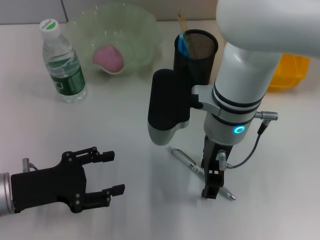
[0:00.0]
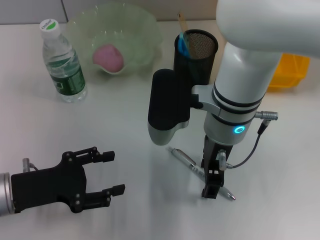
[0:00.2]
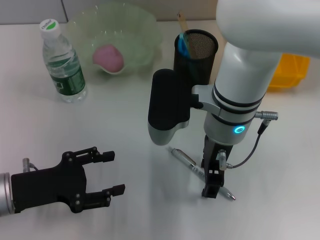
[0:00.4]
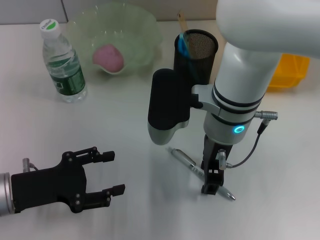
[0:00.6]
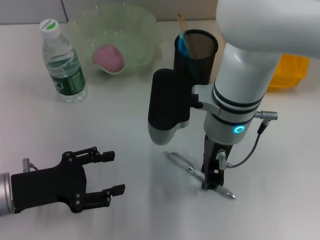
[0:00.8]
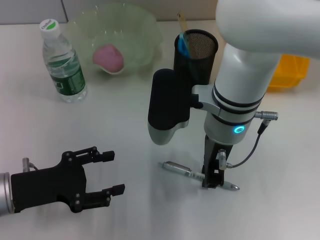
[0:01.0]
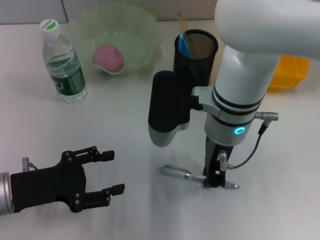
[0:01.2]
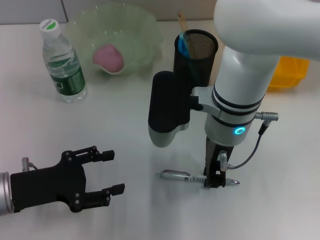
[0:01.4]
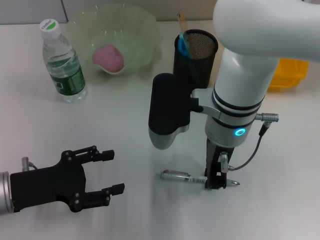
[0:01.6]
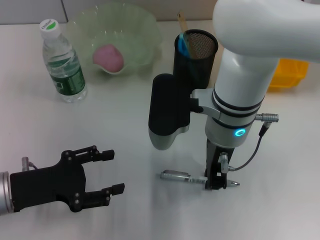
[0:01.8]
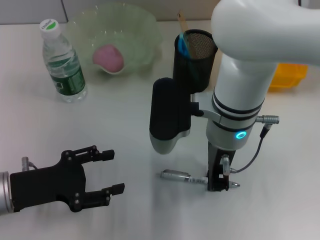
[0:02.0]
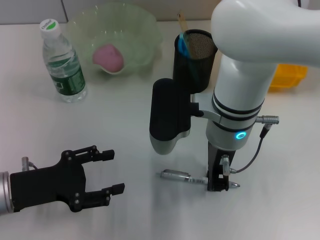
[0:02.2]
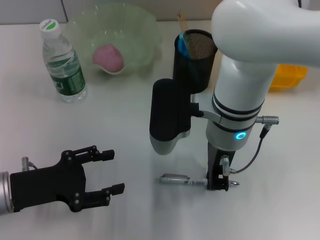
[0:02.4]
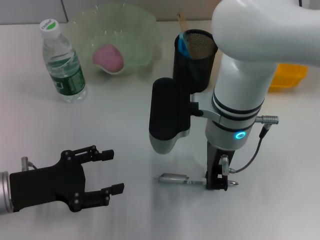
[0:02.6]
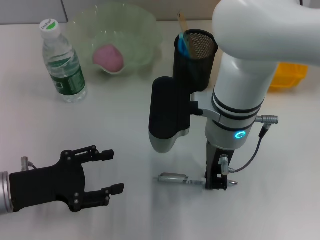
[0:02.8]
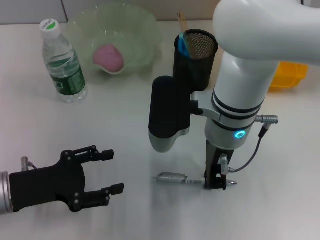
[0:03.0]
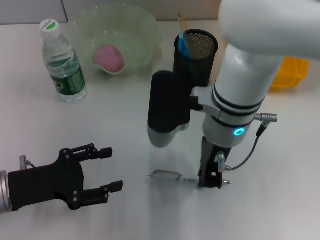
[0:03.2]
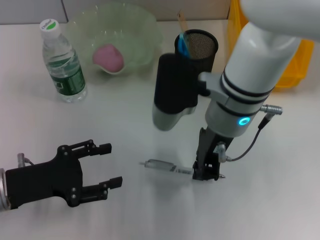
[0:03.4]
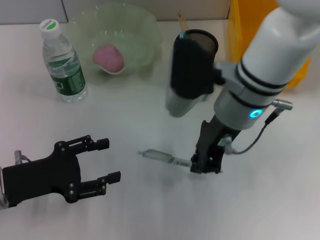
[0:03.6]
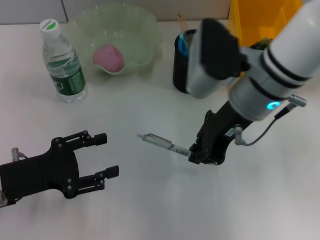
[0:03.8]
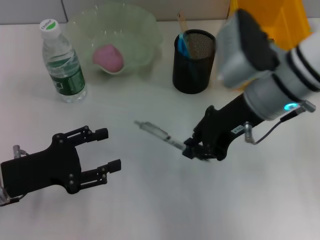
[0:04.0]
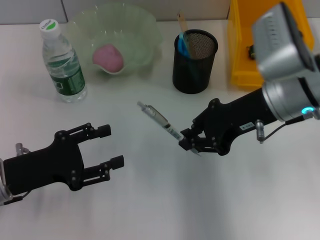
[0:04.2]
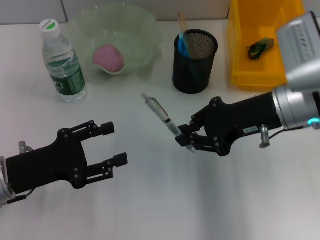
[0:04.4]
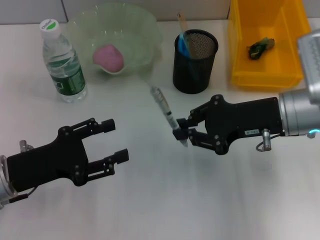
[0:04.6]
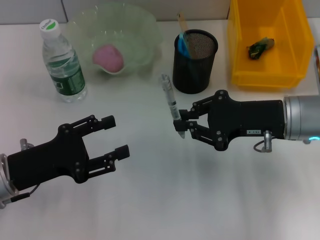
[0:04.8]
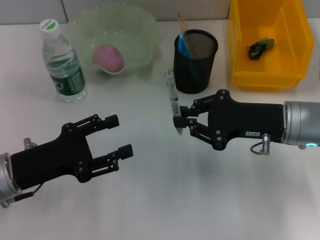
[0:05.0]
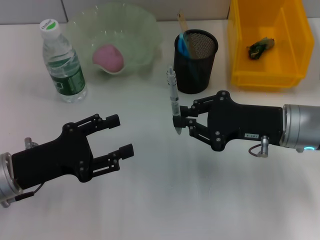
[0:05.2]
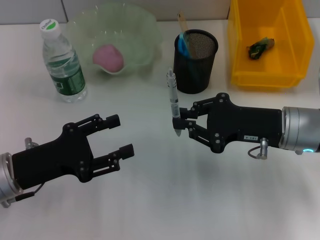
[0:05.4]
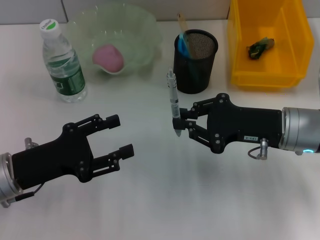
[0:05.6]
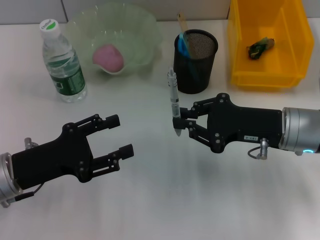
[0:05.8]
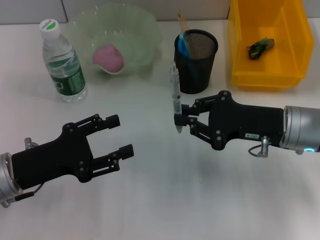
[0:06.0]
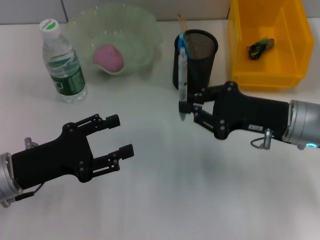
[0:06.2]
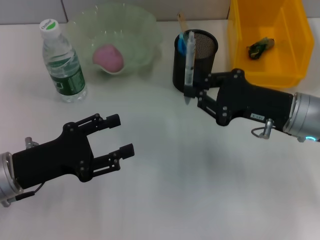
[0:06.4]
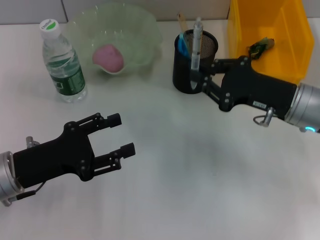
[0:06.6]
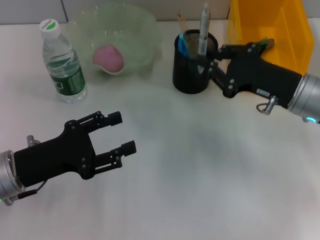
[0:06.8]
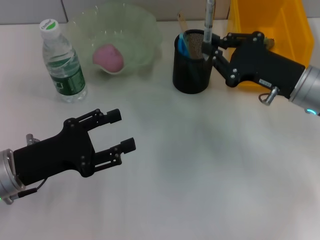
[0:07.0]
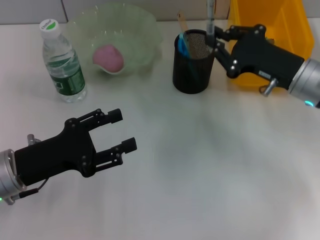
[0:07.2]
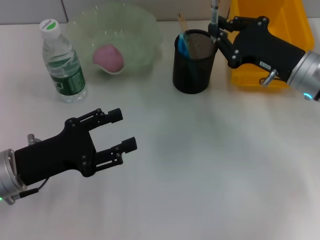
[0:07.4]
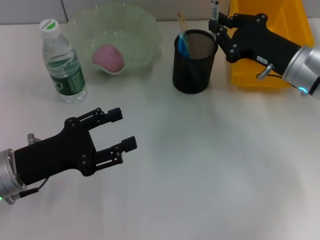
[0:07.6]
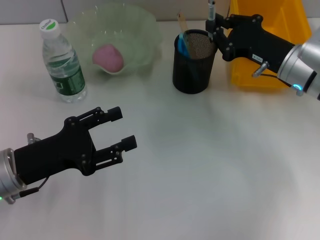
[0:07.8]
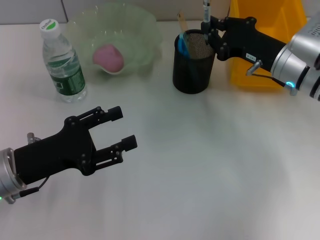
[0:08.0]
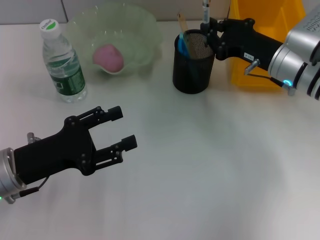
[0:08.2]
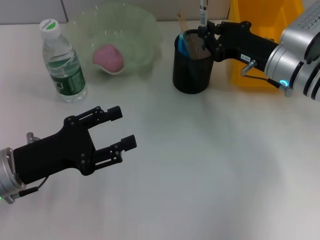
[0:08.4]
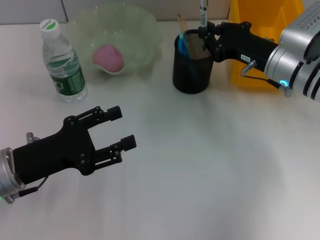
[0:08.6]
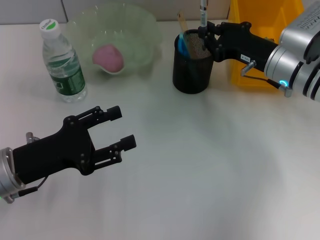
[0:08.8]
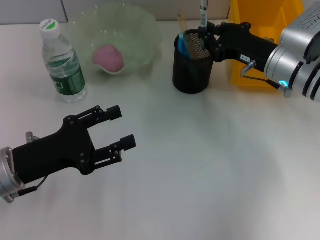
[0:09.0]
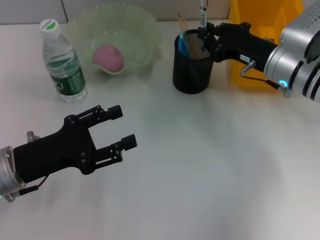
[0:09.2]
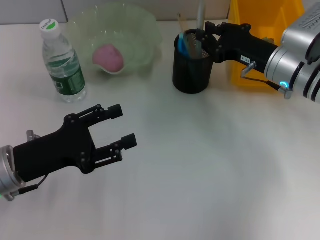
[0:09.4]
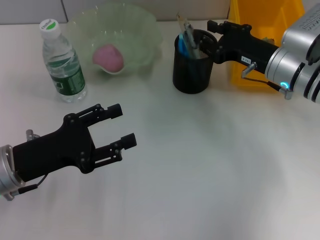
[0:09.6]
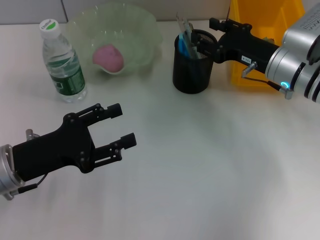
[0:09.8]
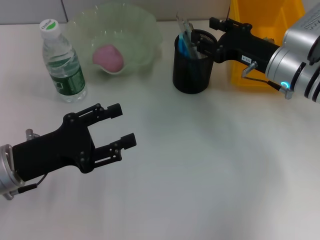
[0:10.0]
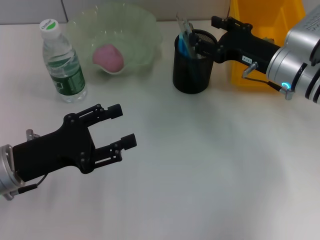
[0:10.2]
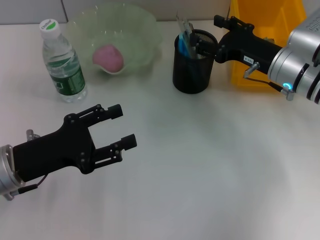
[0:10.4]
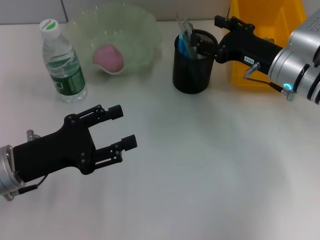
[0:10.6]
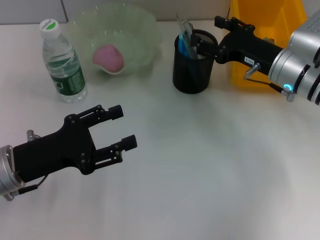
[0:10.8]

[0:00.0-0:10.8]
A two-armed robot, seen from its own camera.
Step, 0:00.0 to 0:02.6: Grab the gray spring-action pen with the right hand.
Step, 0:03.0 to 0:09.6: Place the gray spring-action pen into the pen holder with the right hand.
0:00.0 to 0:01.6: The right gripper closes.
0:01.6 to 0:03.0: The two grippers keep their place.
0:03.0 to 0:04.6: The right gripper goes approximately 15 cm to the right.
0:06.2 to 0:07.8: The right gripper travels forward by roughly 5 cm.
0:07.8 to 0:09.2: There are only small adjustments of the grippers.
0:09.2 to 0:10.8: The right gripper opens.

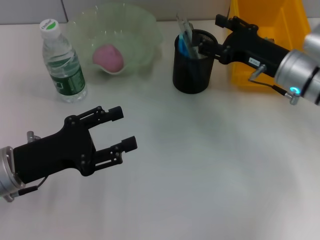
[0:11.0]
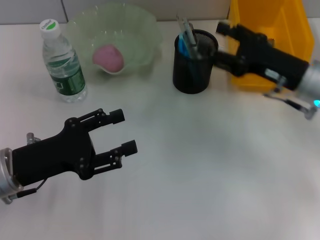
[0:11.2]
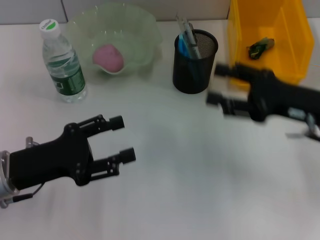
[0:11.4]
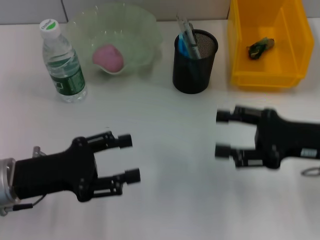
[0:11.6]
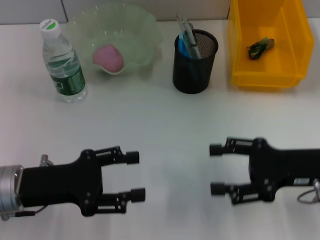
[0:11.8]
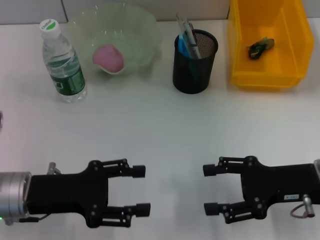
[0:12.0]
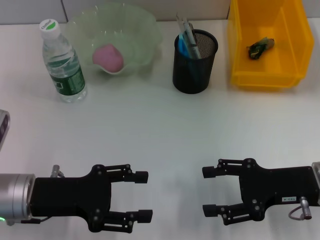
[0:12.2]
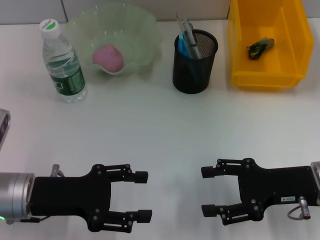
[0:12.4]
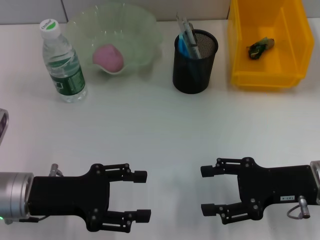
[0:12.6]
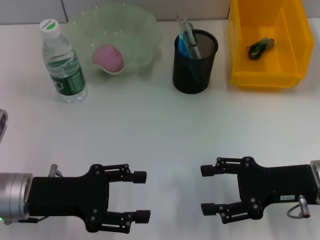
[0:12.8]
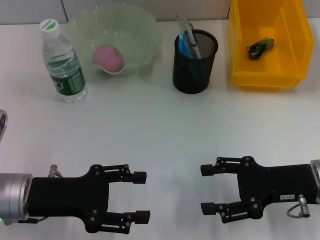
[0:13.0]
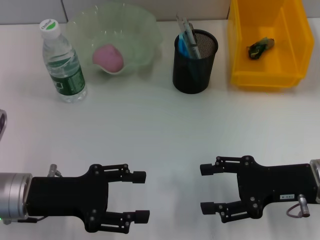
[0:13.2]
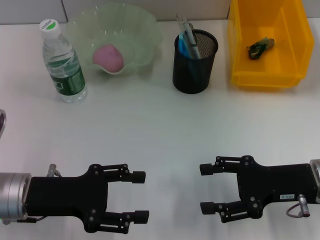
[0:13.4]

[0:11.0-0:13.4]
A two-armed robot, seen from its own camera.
0:11.0 to 0:12.2: The right gripper goes some 10 cm backward.
0:12.2 to 0:13.4: Neither gripper changes place.
